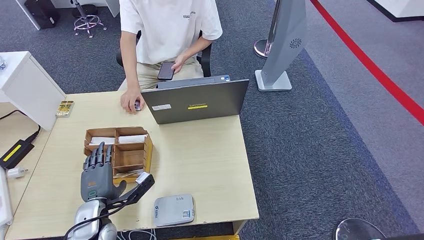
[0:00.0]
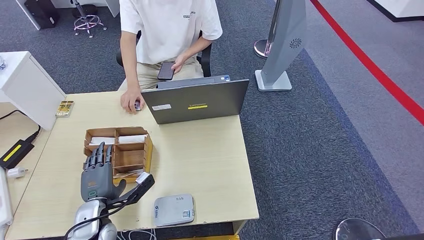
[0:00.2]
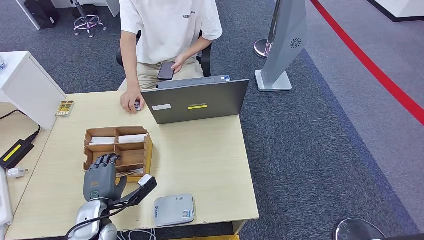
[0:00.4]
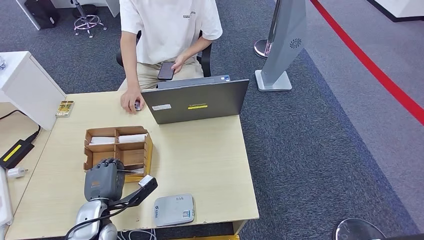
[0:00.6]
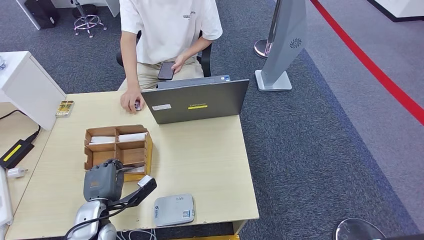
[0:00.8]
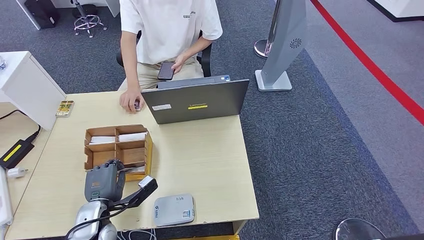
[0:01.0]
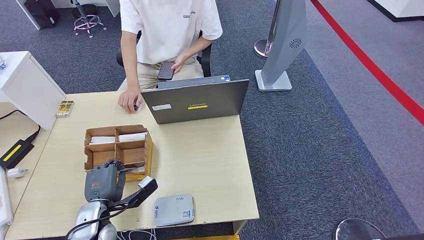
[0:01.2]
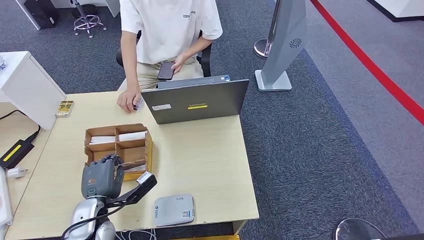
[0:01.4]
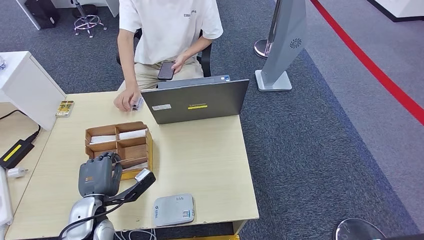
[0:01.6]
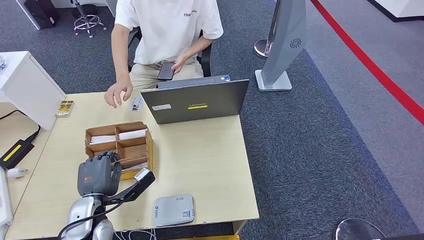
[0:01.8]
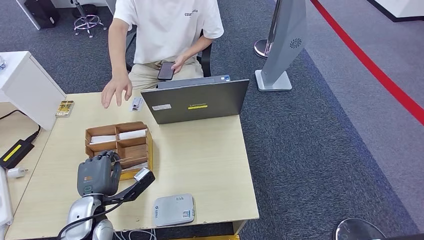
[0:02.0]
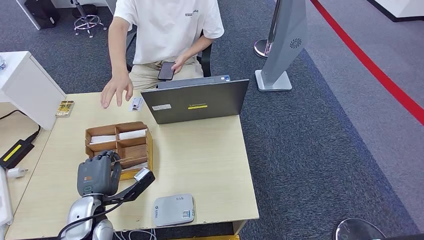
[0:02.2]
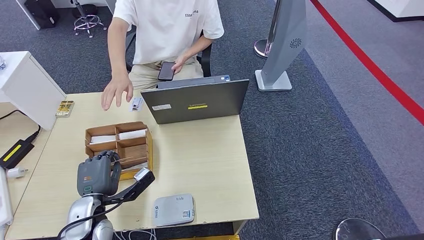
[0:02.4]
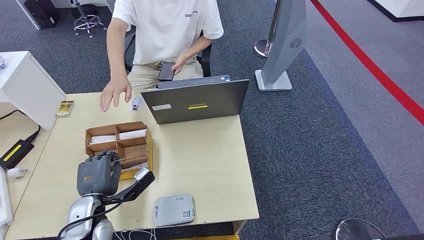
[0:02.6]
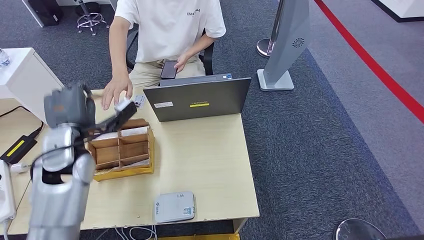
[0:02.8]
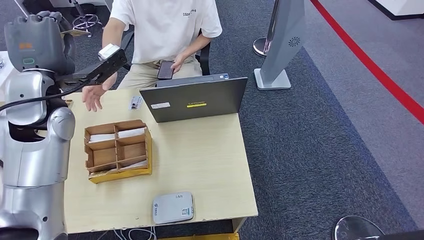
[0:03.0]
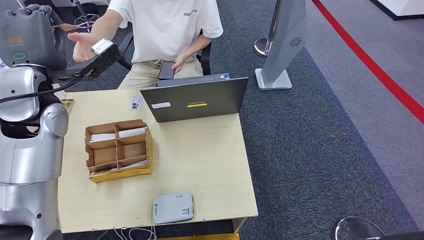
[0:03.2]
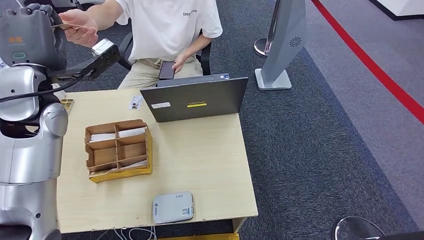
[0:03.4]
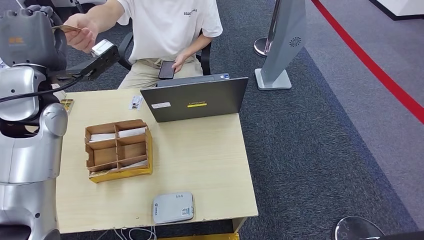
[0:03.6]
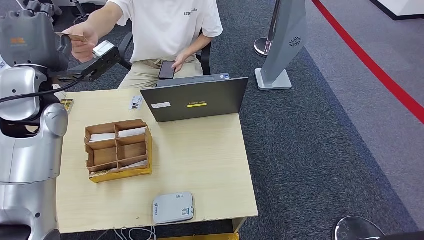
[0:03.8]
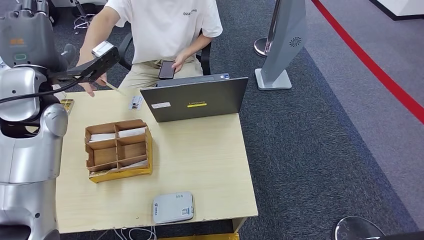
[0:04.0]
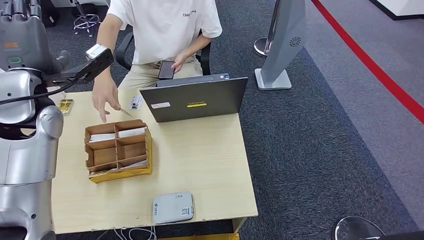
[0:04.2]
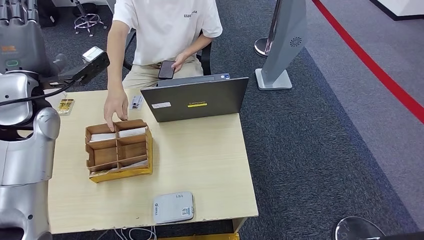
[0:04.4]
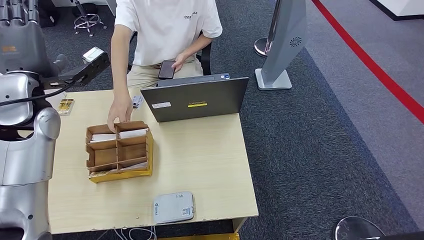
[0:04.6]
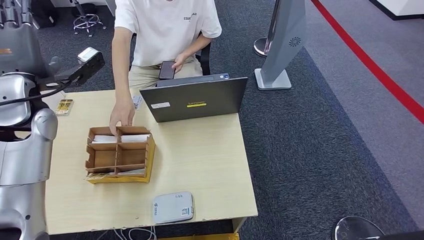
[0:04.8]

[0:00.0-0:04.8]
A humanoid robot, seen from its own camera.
Step, 0:01.4 to 0:04.8: Hand the room key to the person.
0:00.0 to 0:01.6: The hands make only small movements.
0:03.2 to 0:04.8: The left hand changes place by some 5 cm.
